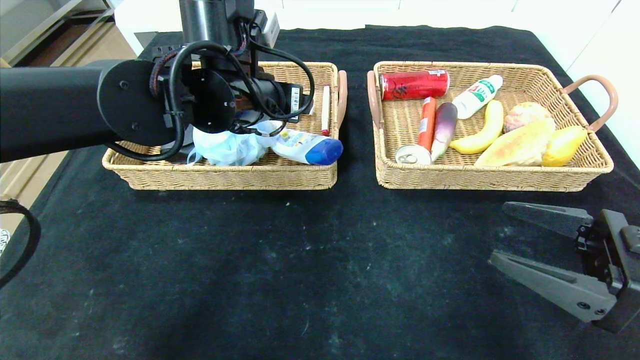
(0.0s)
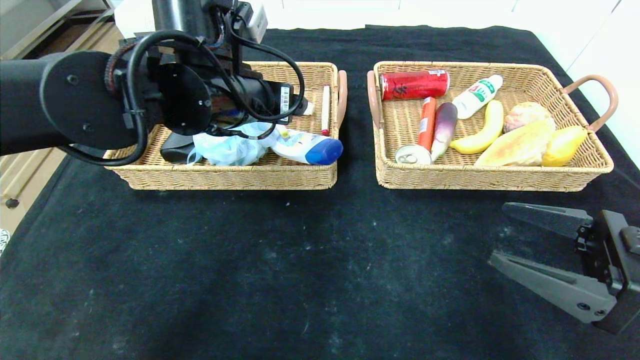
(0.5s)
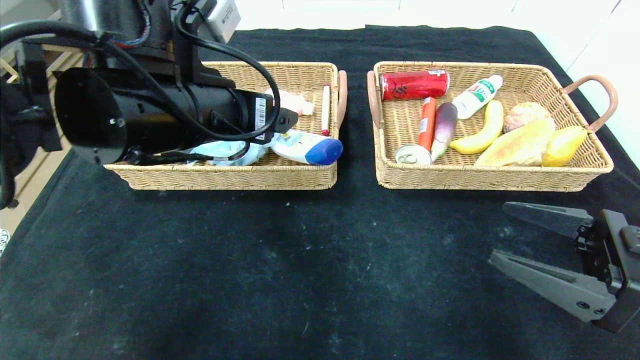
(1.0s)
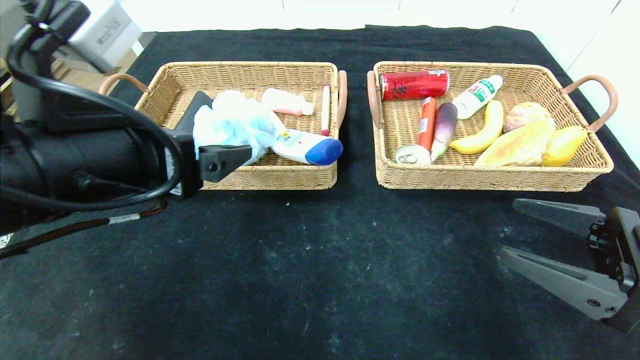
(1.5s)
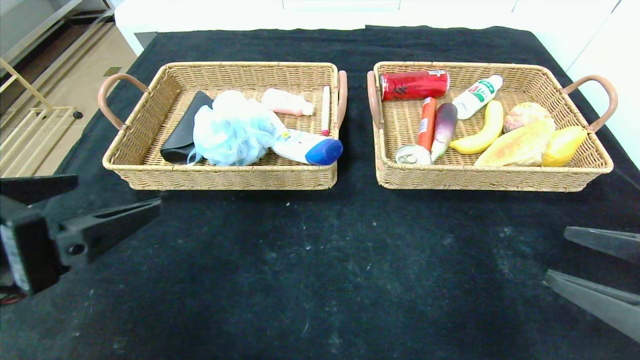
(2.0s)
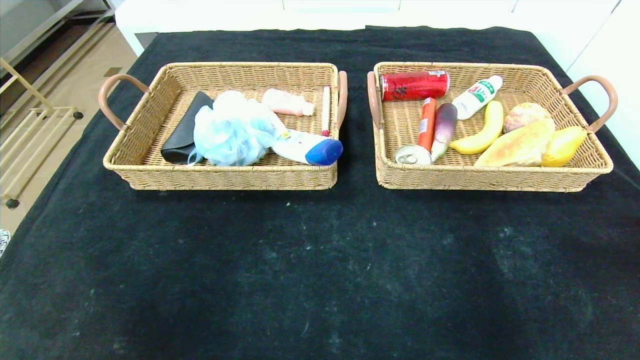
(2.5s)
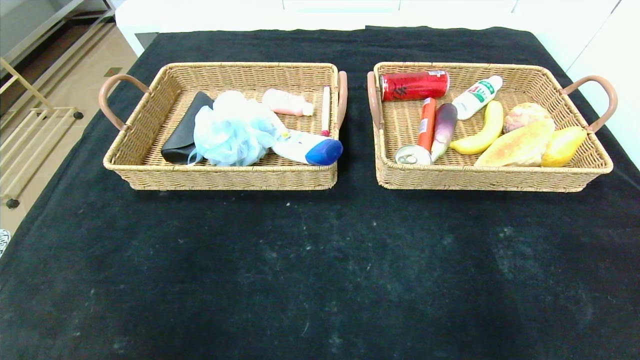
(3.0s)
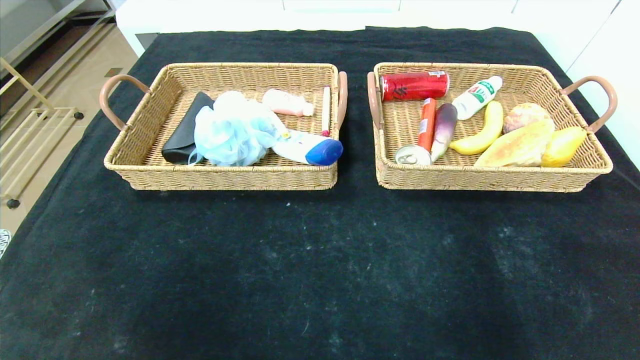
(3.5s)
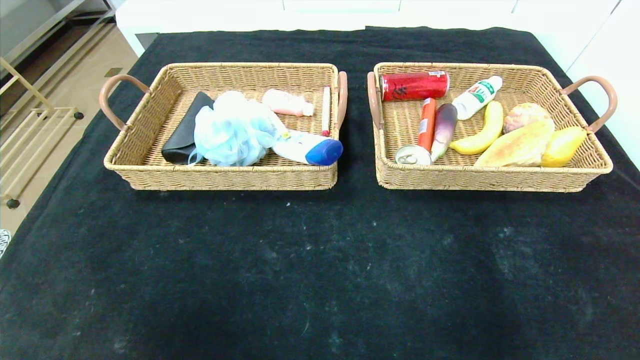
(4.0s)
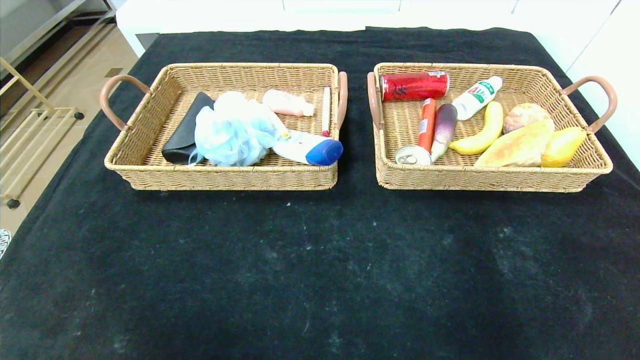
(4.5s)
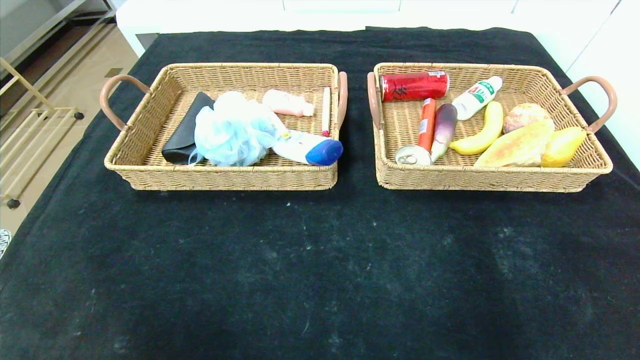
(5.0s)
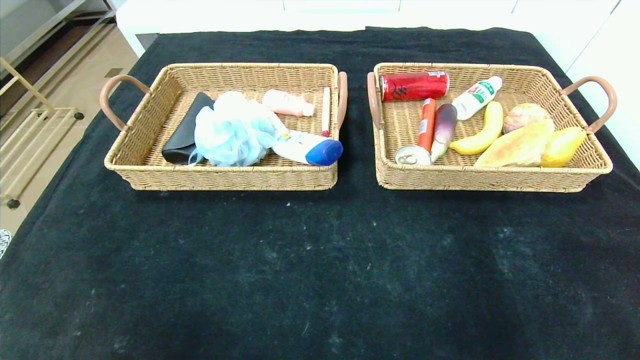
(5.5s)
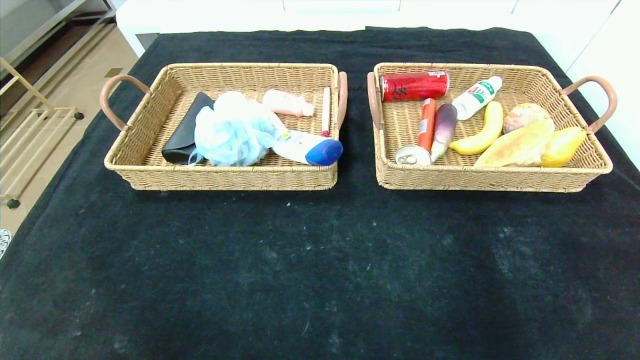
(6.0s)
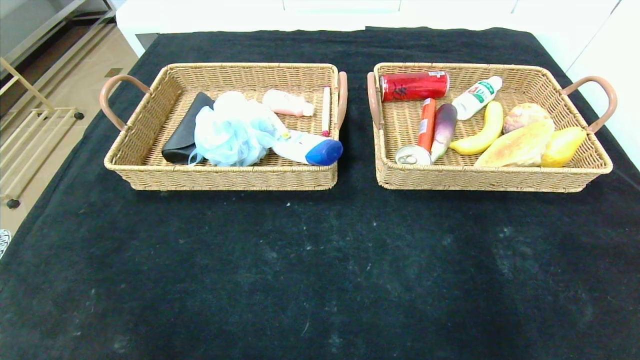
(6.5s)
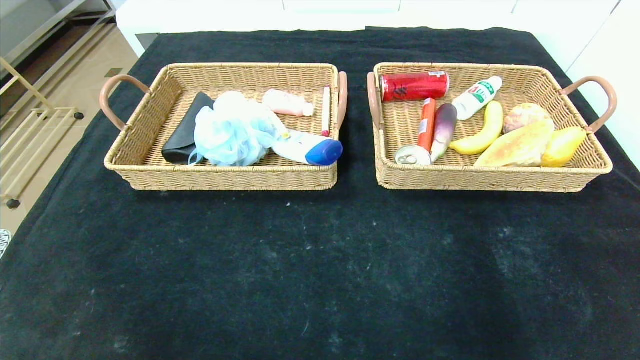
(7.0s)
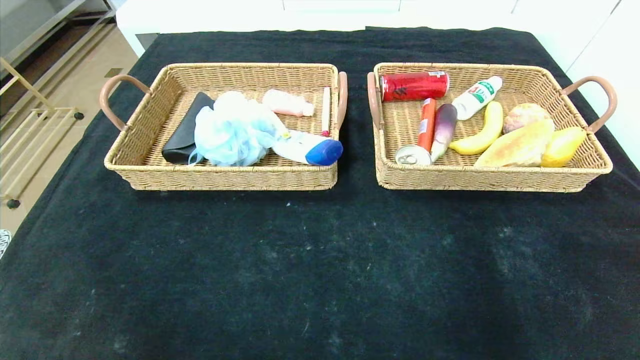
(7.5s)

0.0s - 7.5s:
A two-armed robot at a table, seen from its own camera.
0.0s - 2.0s: The left gripper goes about 25 cm backward and to the left; the right gripper shifts by approximately 5 cm.
2.0s - 4.0s: The grippers both shift backward by approximately 20 cm.

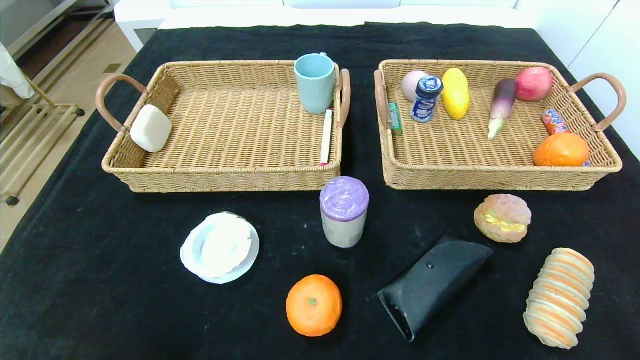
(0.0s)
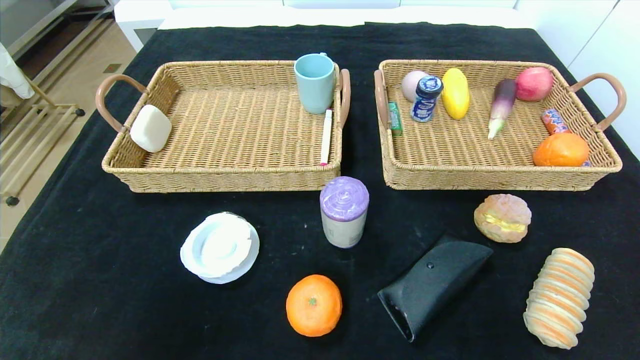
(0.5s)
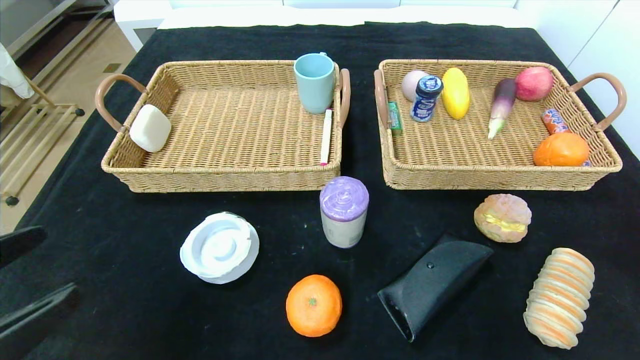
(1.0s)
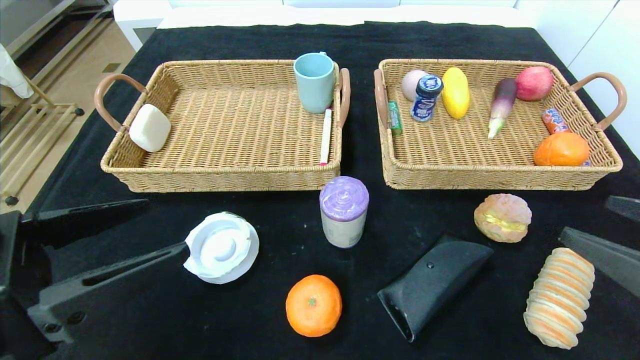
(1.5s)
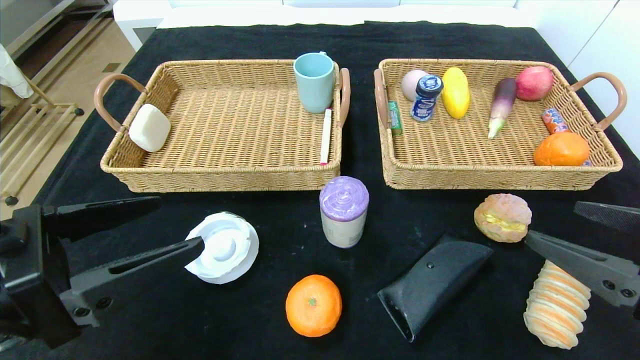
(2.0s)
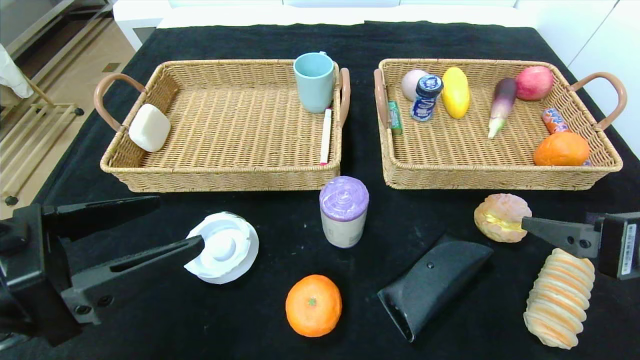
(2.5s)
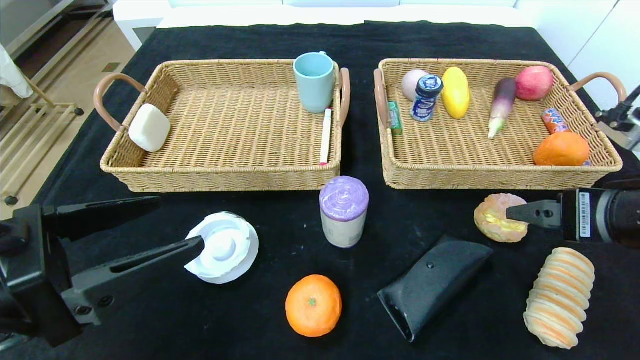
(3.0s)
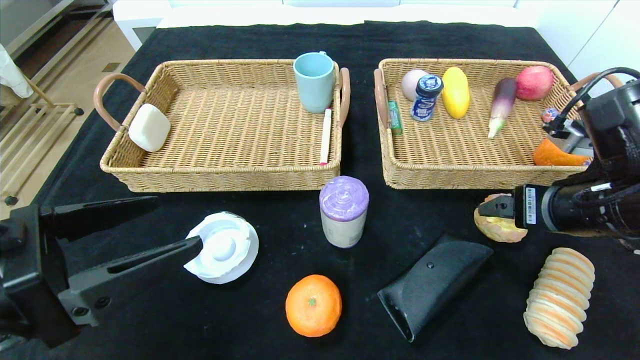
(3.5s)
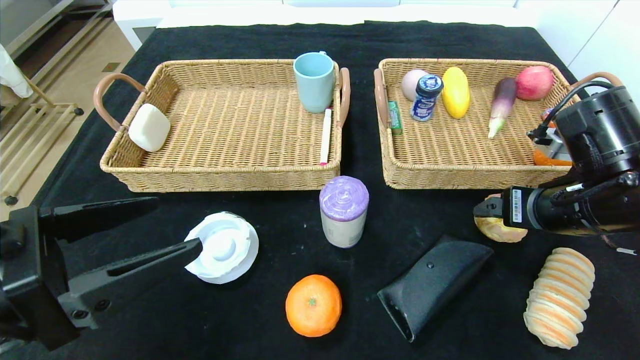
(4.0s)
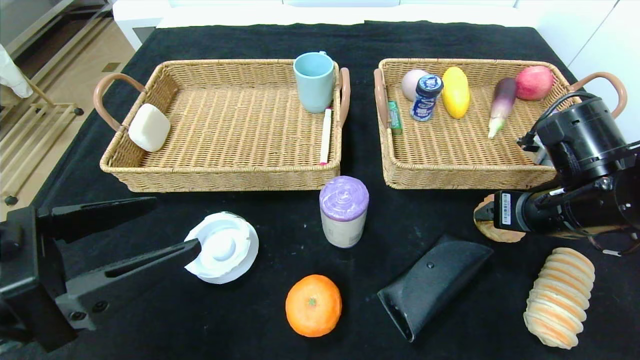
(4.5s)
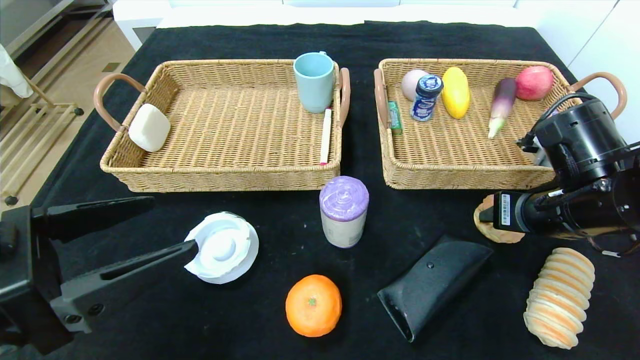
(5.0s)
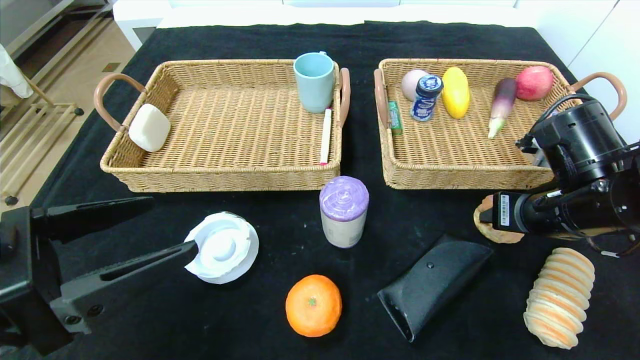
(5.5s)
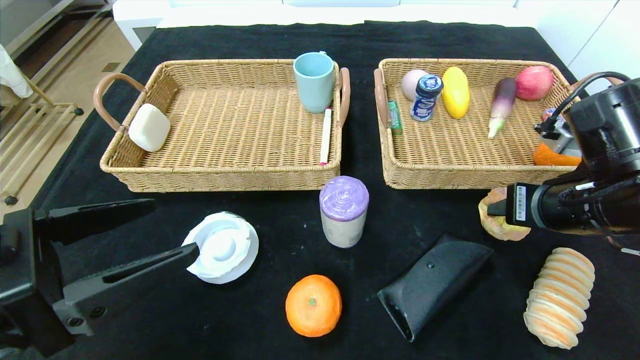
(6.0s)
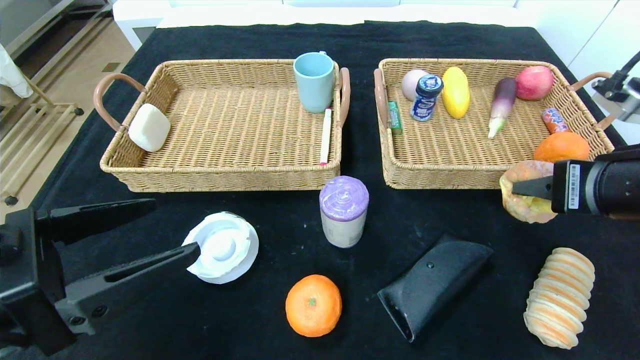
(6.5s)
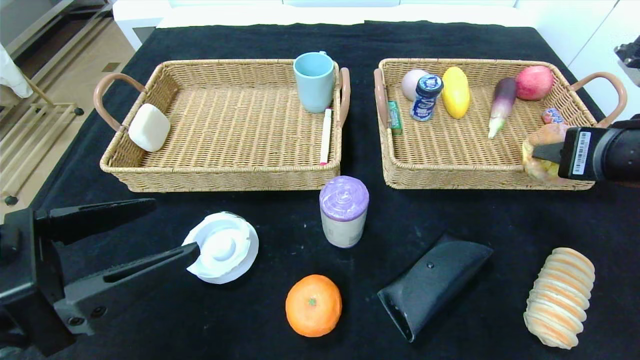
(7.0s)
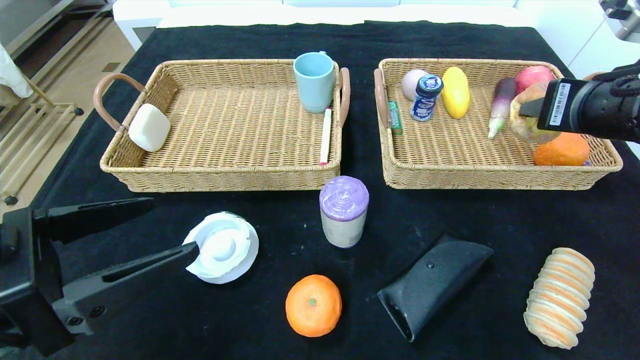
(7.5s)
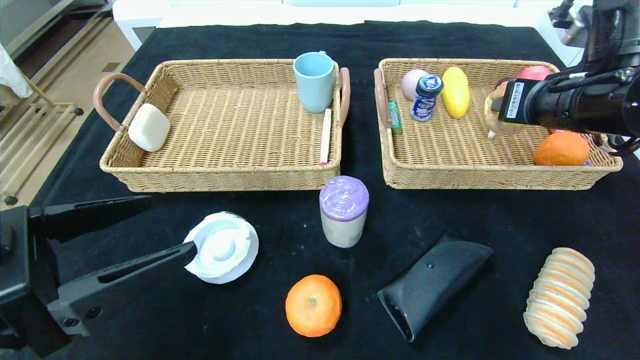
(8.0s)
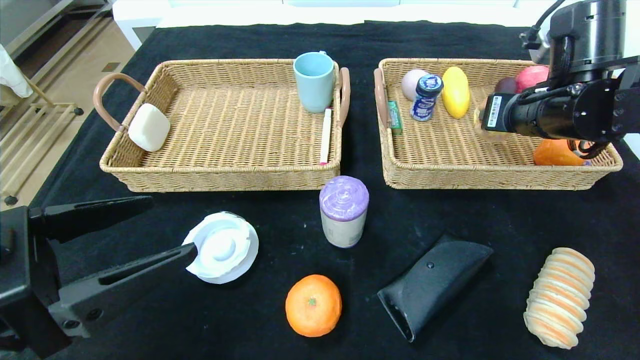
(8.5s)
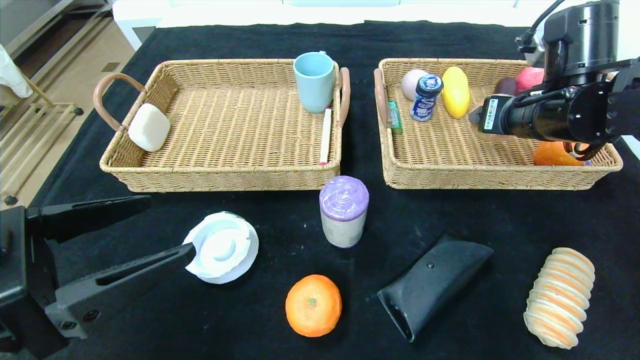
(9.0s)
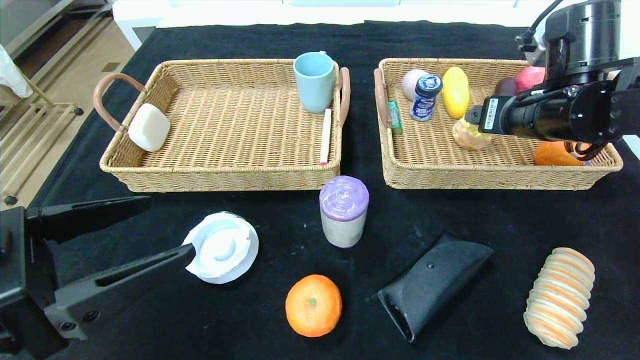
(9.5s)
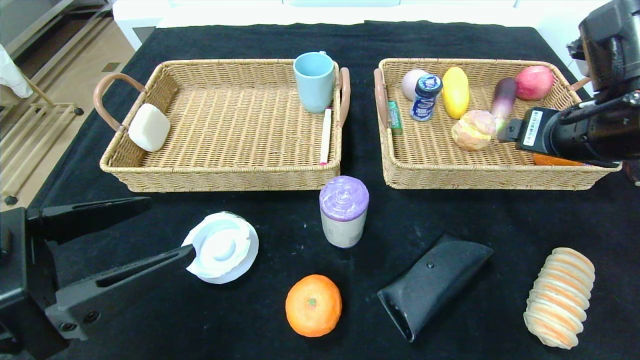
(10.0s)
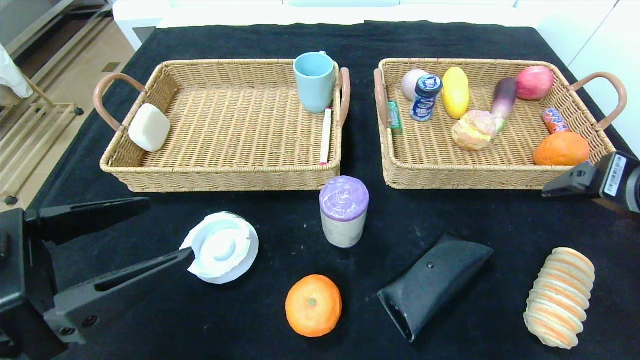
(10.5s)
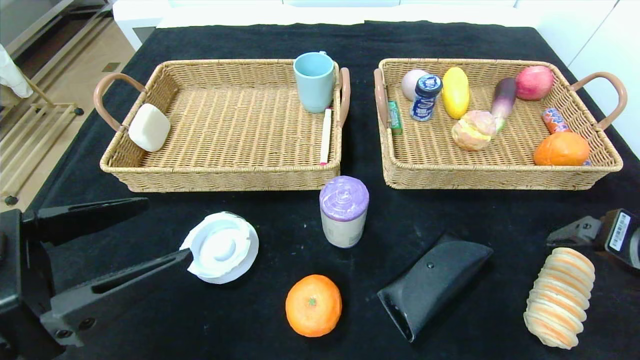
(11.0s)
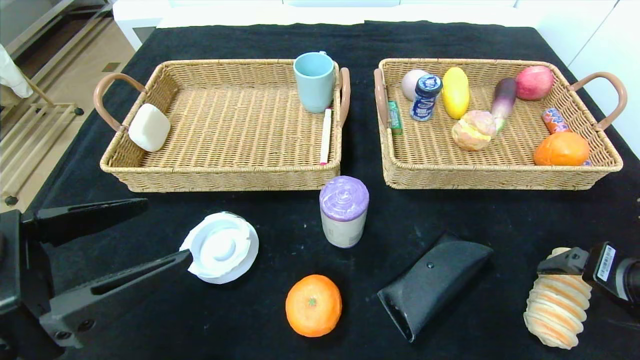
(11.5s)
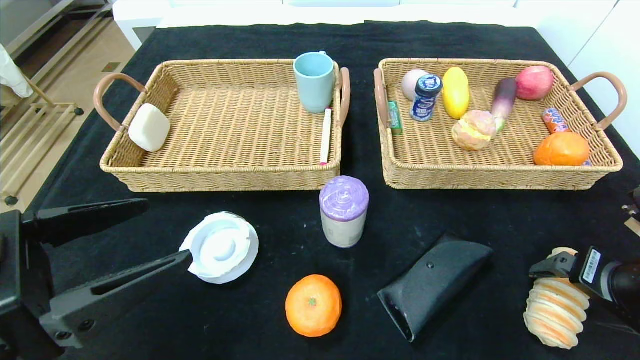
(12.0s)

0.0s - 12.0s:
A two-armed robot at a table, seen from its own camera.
Step, 0.0s - 9.5s: Grasp the round bread and put it in the right basket.
0.0s - 2.0s: The right gripper travels forward, upward and to the left by some 20 cm. The left gripper moves upward and forward, approximately 20 cm.
2.0s - 4.0s: The right gripper heads forward, covering about 15 cm.
4.0s - 6.0s: The right gripper closes up.
6.0s - 8.0s: The right gripper moves upward and forward, roughly 10 cm.
8.0s - 10.0s: The right gripper opens.
10.0s - 12.0s: The right gripper goes about 15 cm downward, backward and to the right.
